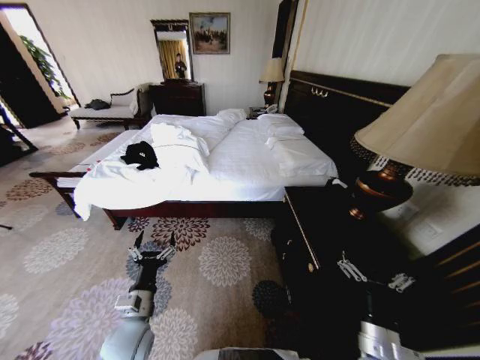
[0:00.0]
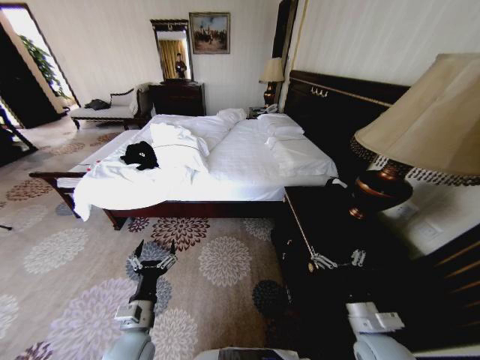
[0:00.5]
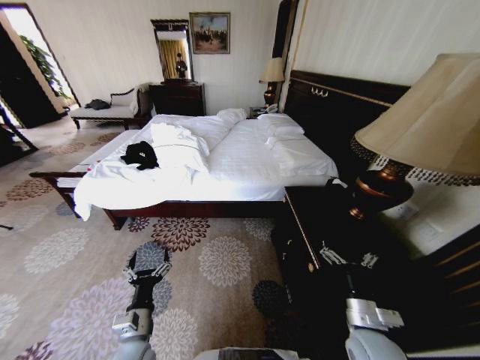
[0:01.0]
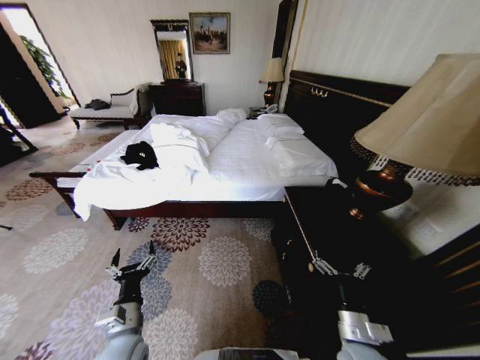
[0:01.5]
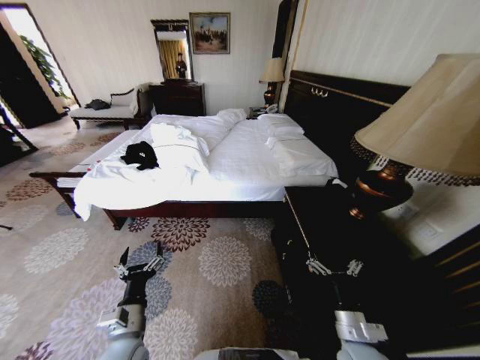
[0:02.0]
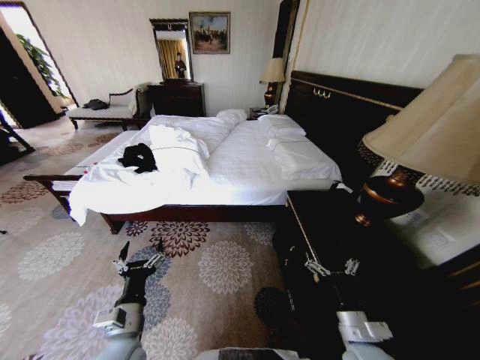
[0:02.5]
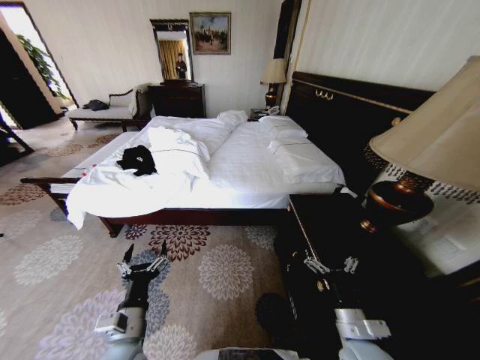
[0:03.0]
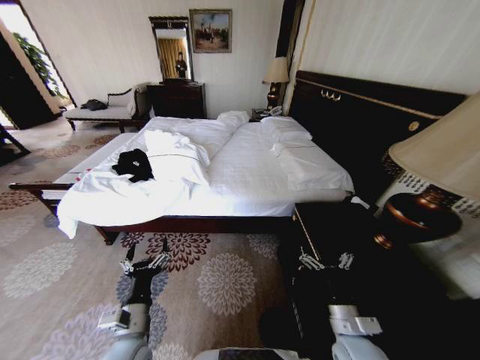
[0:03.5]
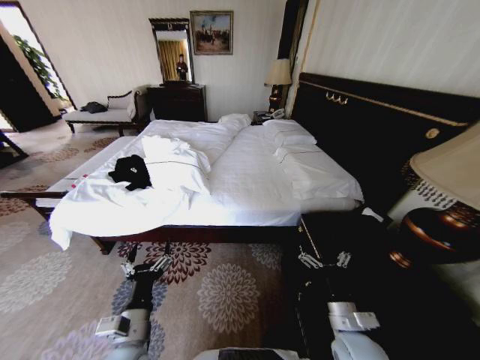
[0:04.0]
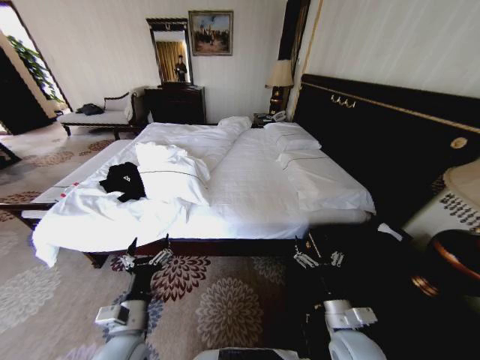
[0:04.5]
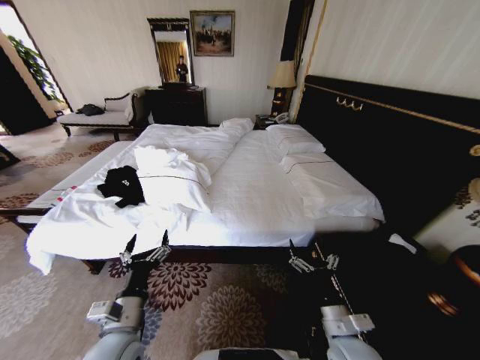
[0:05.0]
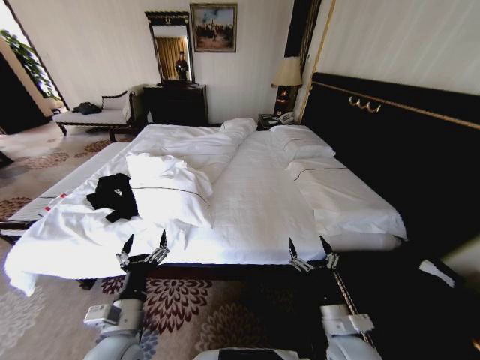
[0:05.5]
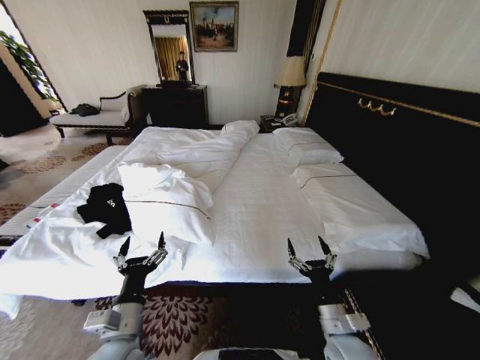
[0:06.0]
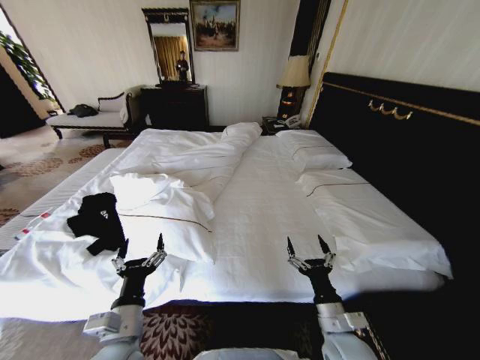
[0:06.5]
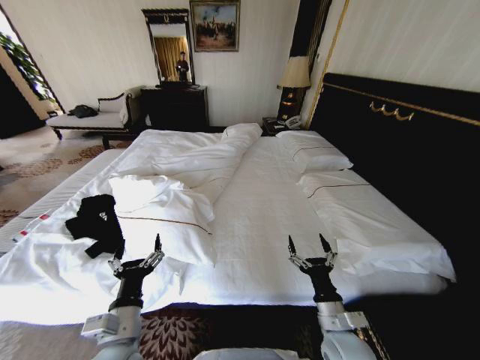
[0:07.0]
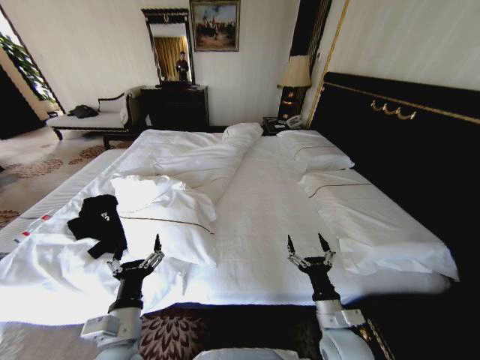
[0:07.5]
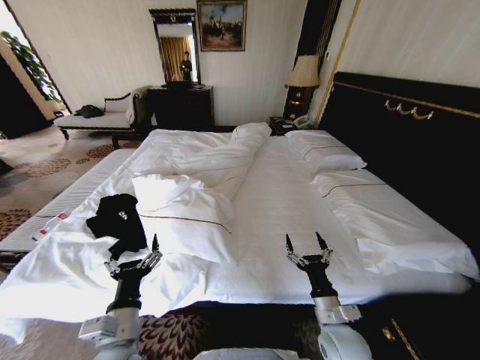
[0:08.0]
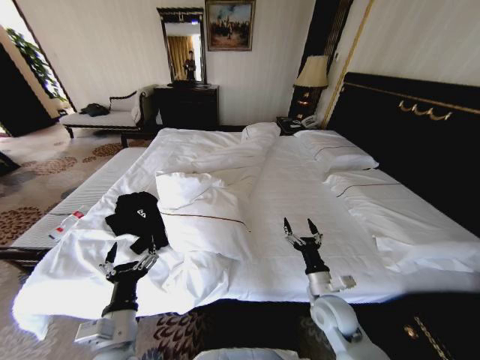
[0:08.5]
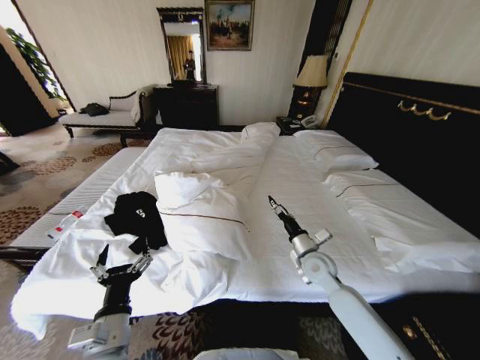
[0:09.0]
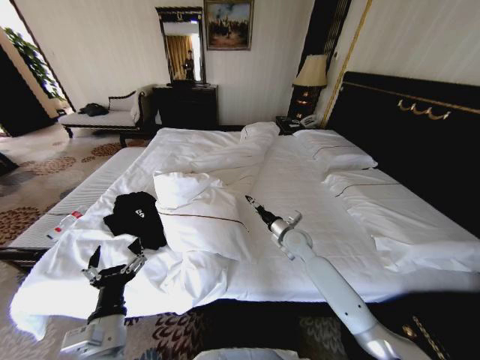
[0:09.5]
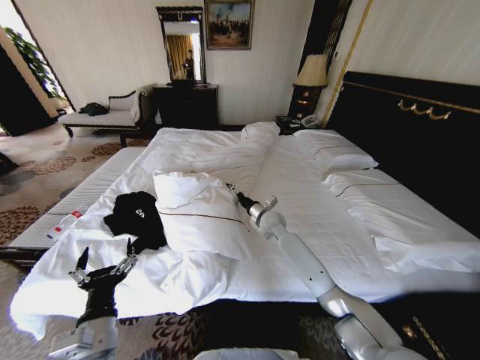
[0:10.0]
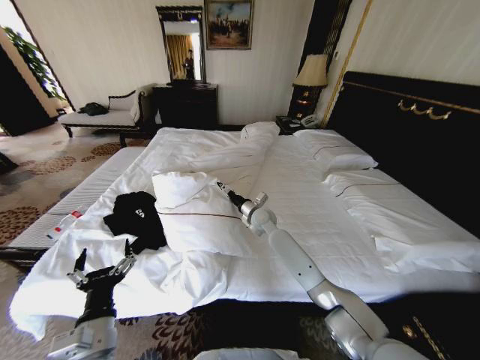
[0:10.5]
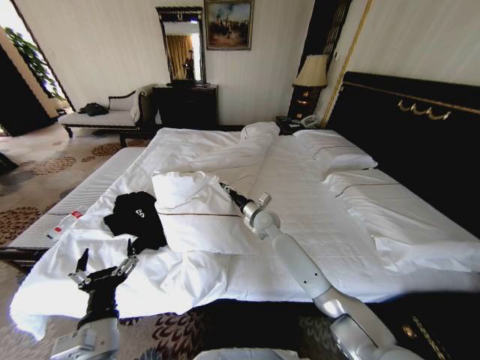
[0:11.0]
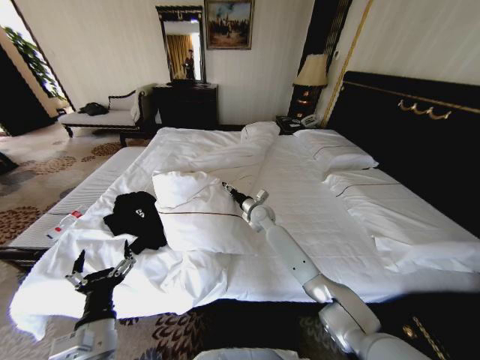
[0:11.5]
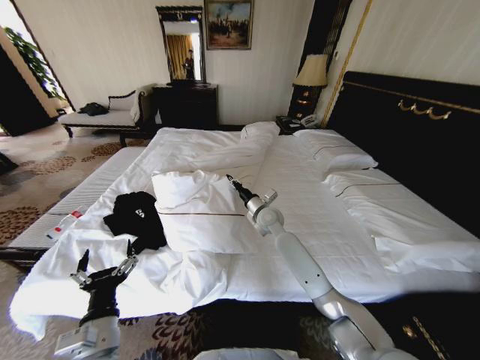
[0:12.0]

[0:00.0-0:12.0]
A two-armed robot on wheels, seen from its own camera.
Task of the whole recording: Fold the clothes on the bed.
0:08.0 to 0:10.0: The right gripper moves forward, about 35 cm.
0:10.0 to 0:12.0: The right gripper closes its fingers.

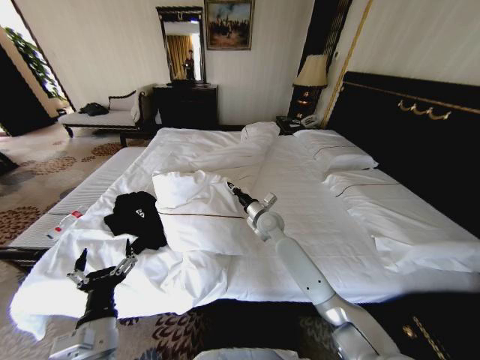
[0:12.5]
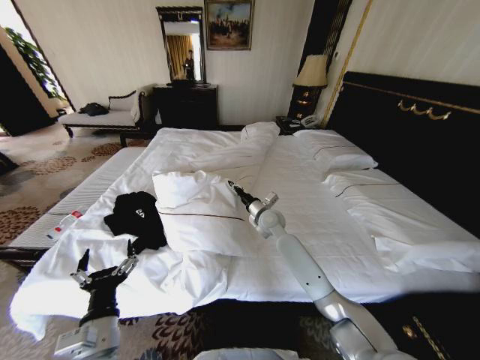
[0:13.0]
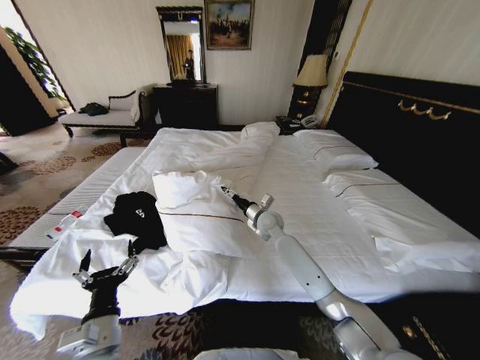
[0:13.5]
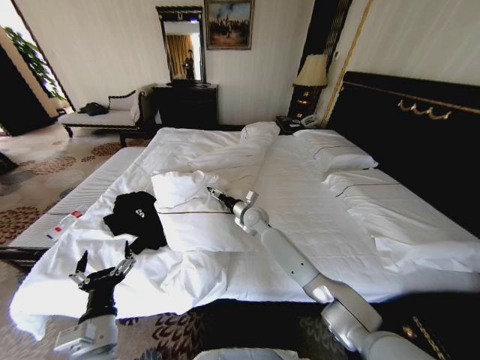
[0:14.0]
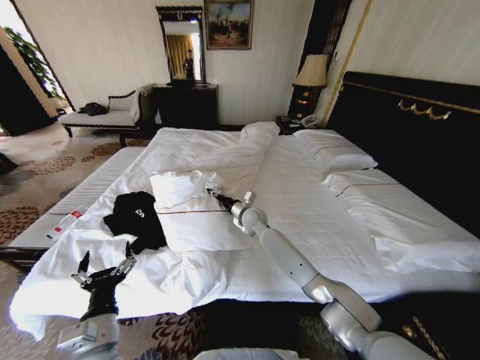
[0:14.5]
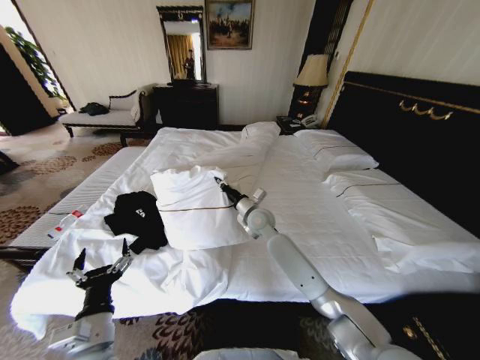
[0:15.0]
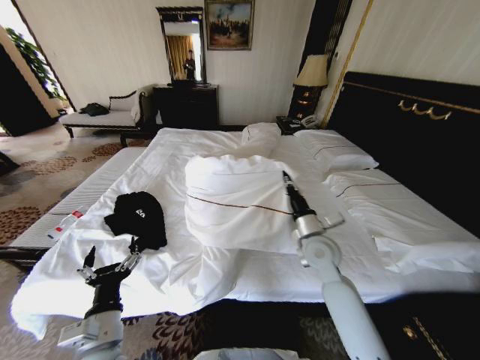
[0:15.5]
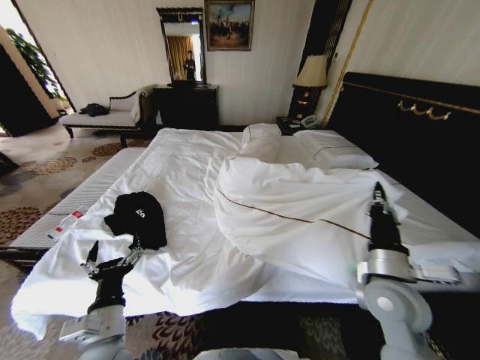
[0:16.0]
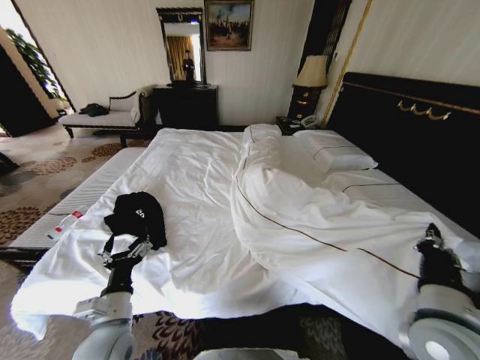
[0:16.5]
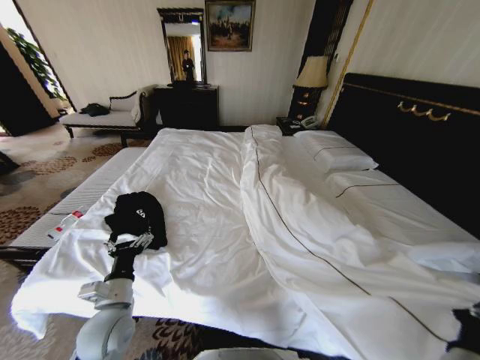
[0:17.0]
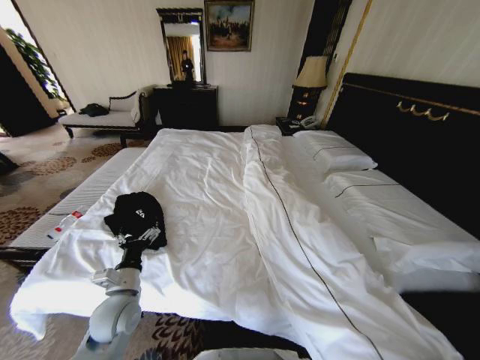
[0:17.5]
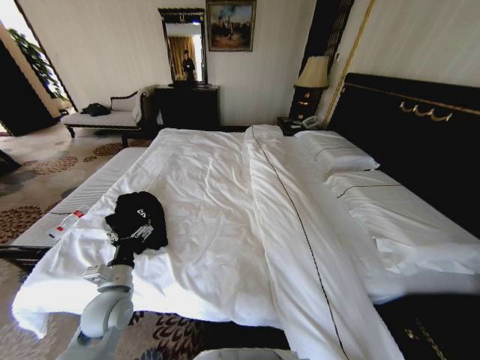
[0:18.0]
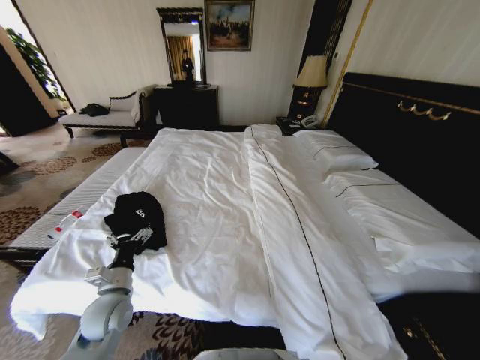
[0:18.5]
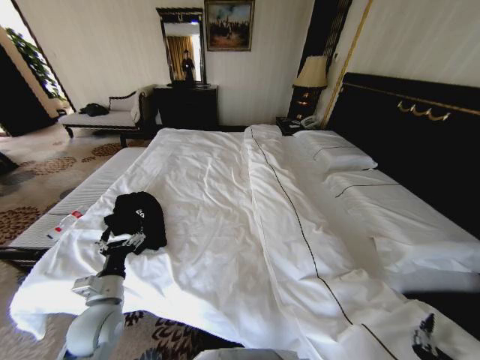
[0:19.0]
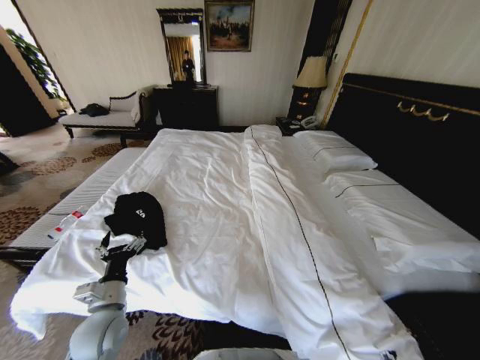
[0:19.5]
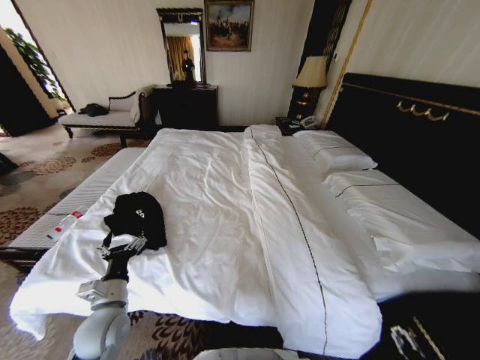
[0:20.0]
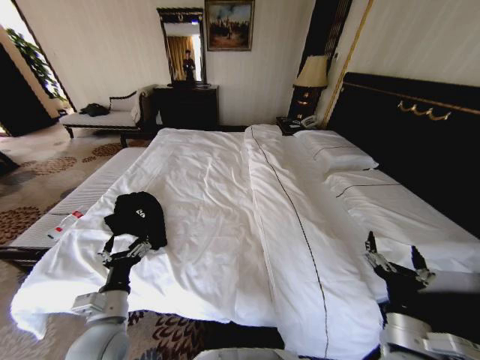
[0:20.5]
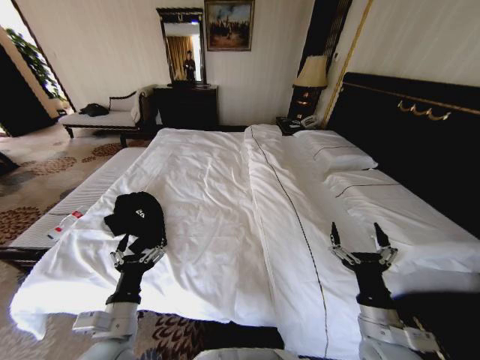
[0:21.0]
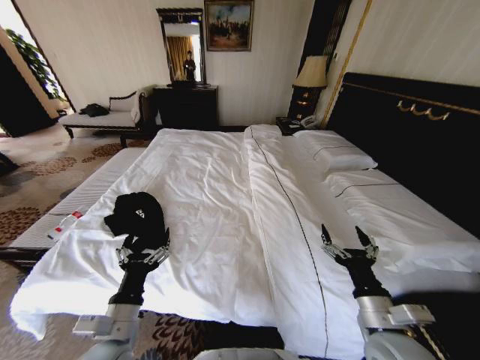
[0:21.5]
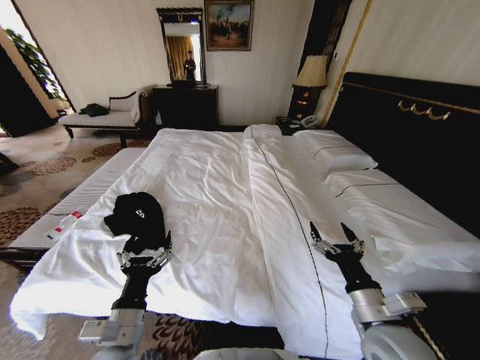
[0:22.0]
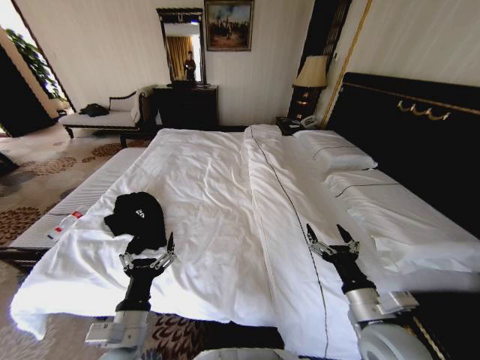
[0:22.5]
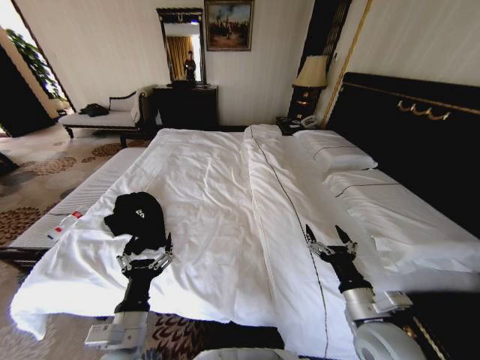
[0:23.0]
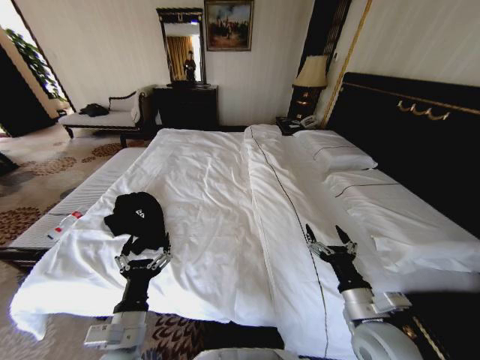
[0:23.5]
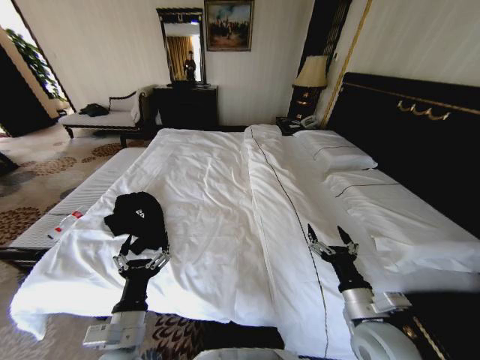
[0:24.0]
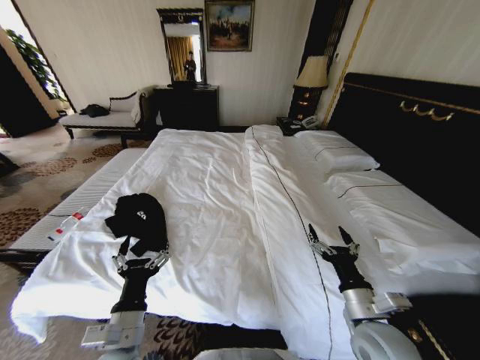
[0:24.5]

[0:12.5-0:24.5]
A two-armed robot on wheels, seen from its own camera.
Task of the whole recording: Fold the clothes on the bed.
0:12.5 to 0:14.5: The right gripper moves some 5 cm, and opens its fingers.
0:14.5 to 0:16.5: The right gripper is displaced backward and to the right by some 40 cm, and closes.
0:16.5 to 0:18.5: The right gripper is displaced downward and backward by approximately 30 cm, while the left gripper travels forward by roughly 5 cm.
0:18.5 to 0:20.5: The right gripper shifts about 25 cm upward and forward, and opens up, while the left gripper moves backward, some 5 cm.
0:20.5 to 0:22.5: The left gripper goes about 5 cm to the right.
0:22.5 to 0:24.5: The grippers make only small movements.

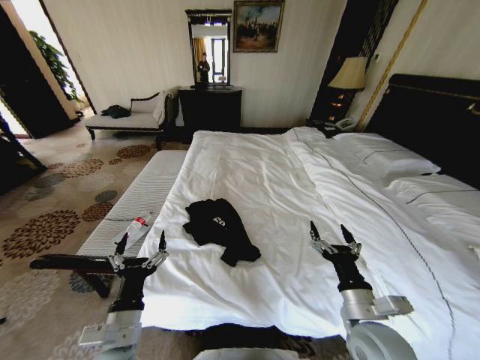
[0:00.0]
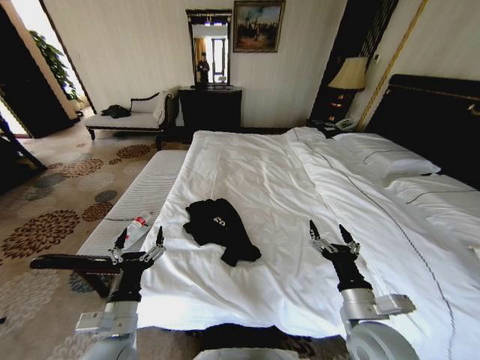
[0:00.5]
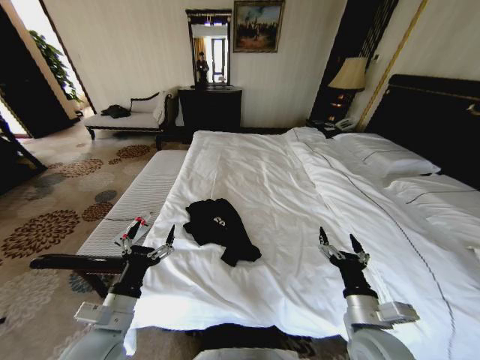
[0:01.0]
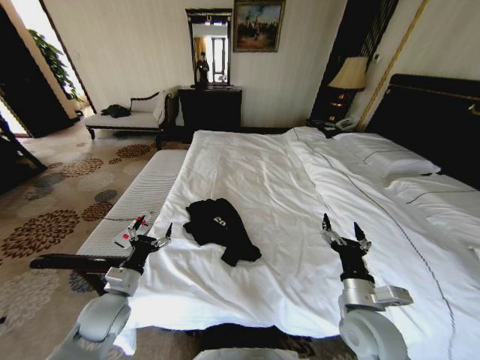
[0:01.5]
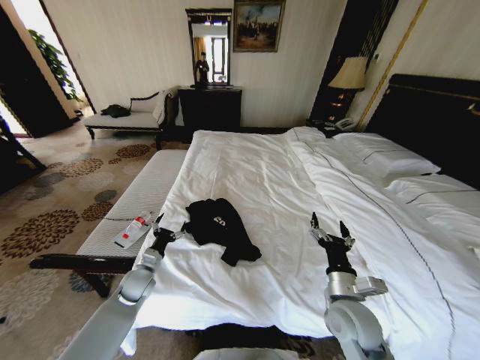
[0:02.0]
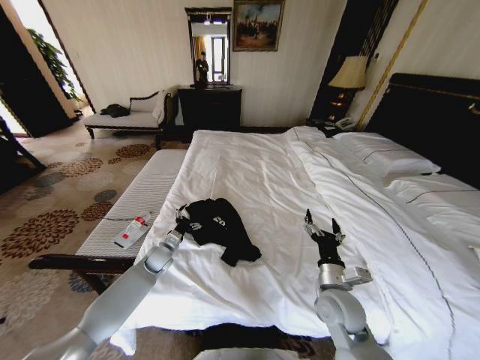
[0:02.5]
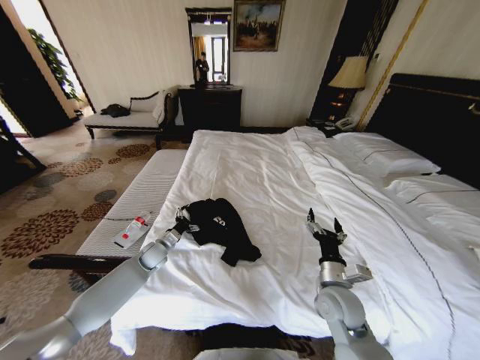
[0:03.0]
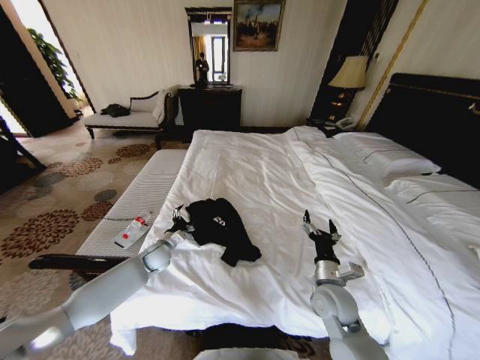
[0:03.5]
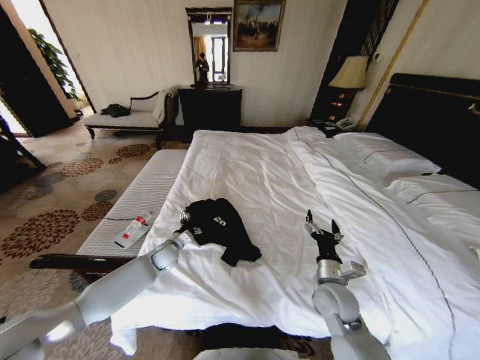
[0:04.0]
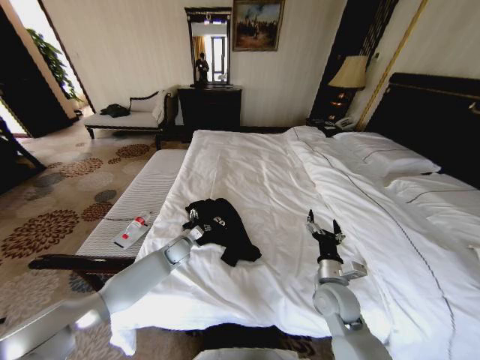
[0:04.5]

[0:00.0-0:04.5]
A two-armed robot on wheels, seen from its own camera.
Task of the whole recording: Fold the clothes on the bed.
0:00.0 to 0:02.0: The left gripper goes approximately 25 cm forward and downward, while the right gripper shifts by about 5 cm.
0:02.0 to 0:04.5: The right gripper is displaced forward by roughly 5 cm, while the left gripper travels forward and to the right by about 15 cm.
